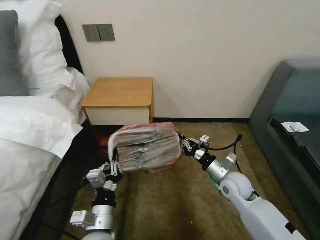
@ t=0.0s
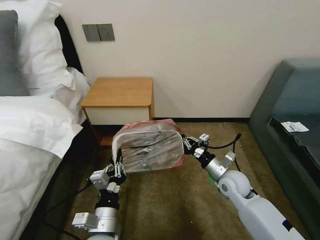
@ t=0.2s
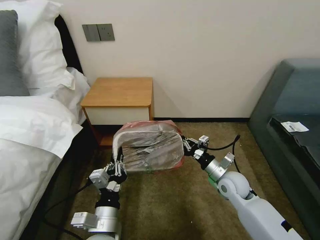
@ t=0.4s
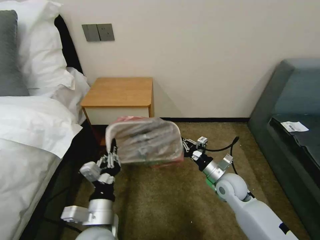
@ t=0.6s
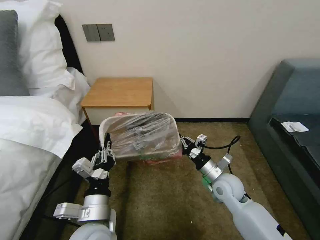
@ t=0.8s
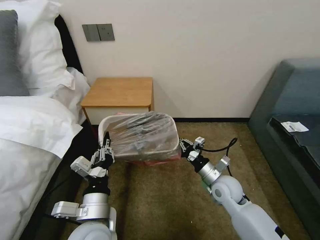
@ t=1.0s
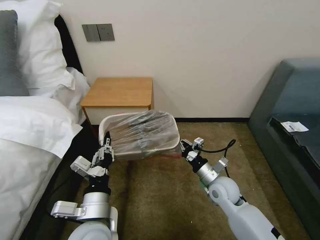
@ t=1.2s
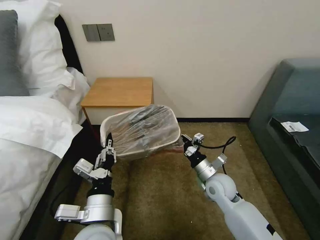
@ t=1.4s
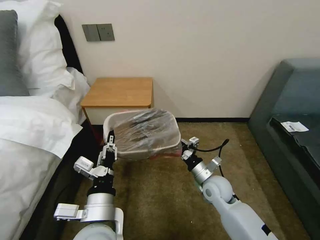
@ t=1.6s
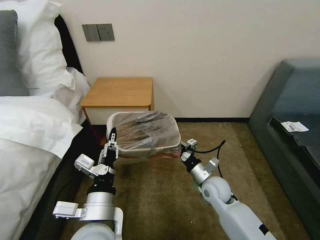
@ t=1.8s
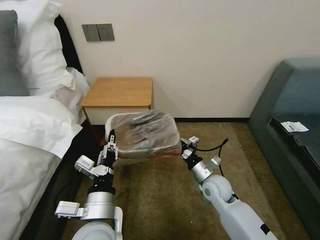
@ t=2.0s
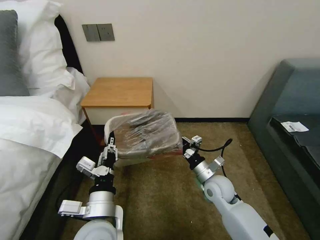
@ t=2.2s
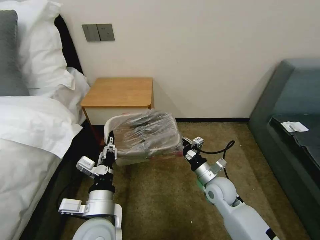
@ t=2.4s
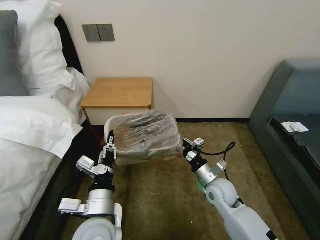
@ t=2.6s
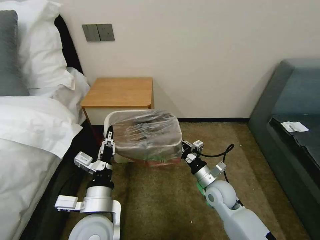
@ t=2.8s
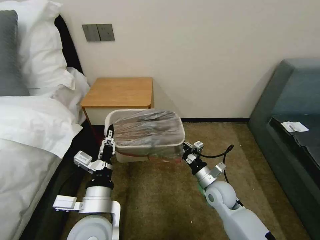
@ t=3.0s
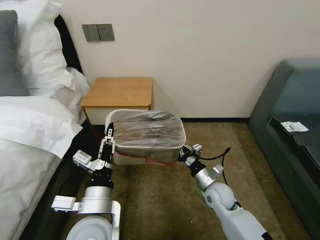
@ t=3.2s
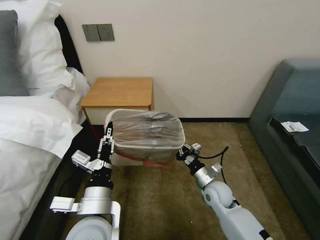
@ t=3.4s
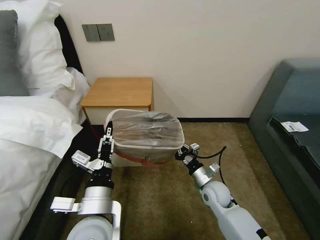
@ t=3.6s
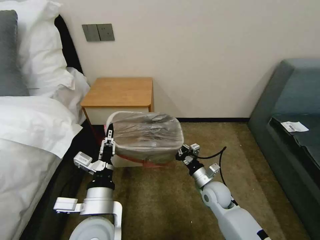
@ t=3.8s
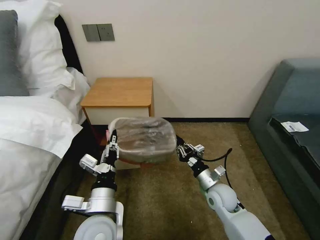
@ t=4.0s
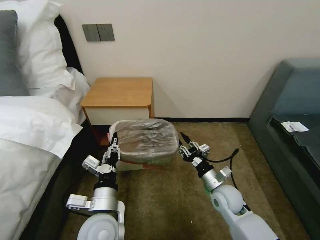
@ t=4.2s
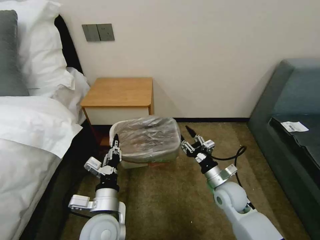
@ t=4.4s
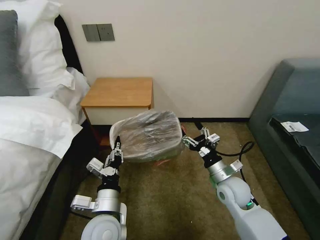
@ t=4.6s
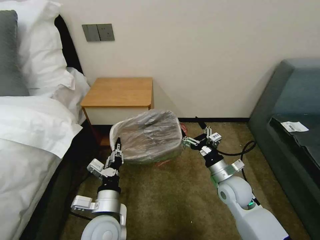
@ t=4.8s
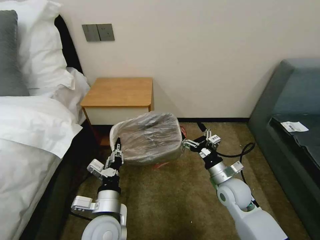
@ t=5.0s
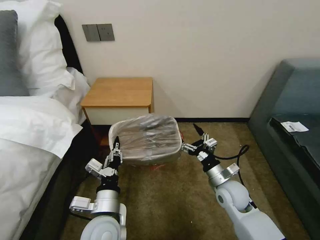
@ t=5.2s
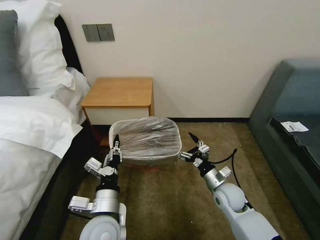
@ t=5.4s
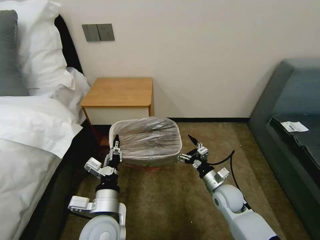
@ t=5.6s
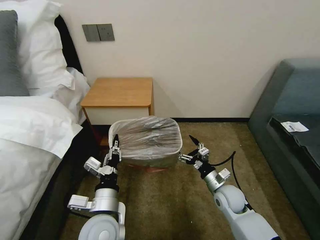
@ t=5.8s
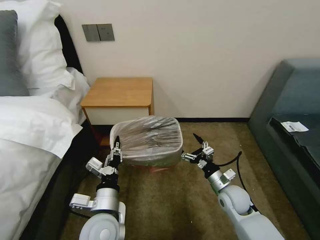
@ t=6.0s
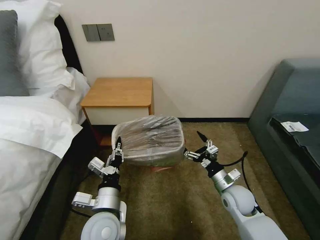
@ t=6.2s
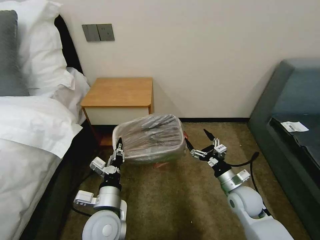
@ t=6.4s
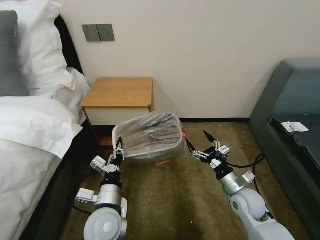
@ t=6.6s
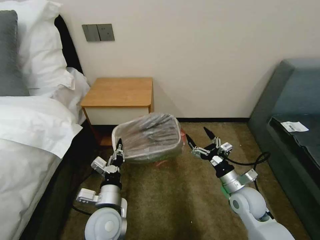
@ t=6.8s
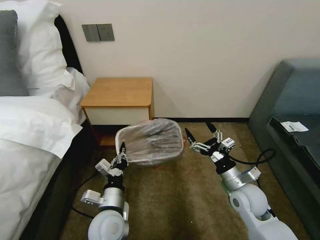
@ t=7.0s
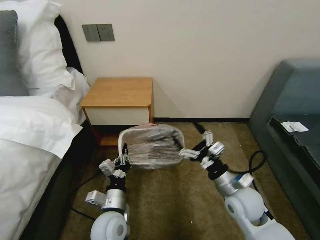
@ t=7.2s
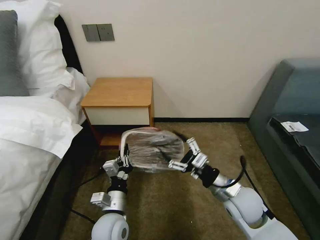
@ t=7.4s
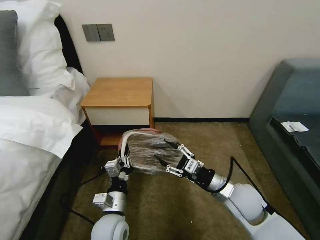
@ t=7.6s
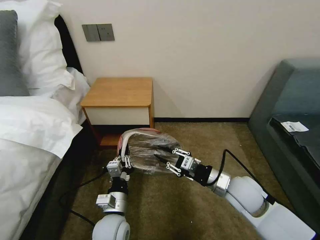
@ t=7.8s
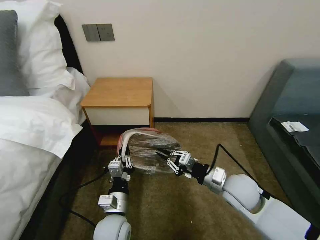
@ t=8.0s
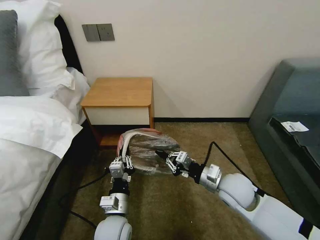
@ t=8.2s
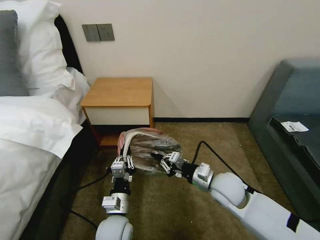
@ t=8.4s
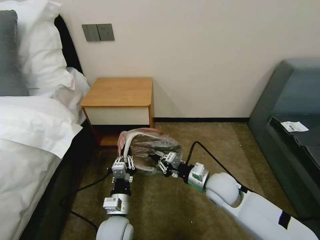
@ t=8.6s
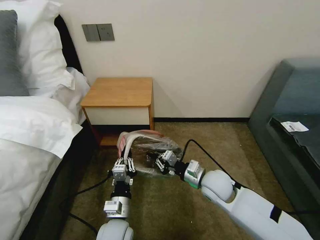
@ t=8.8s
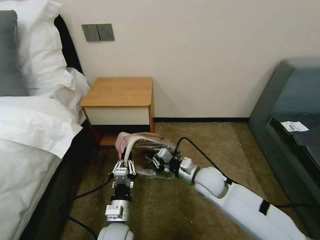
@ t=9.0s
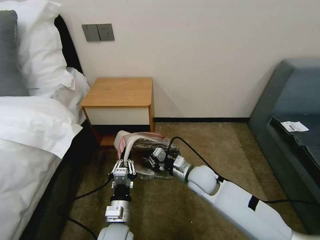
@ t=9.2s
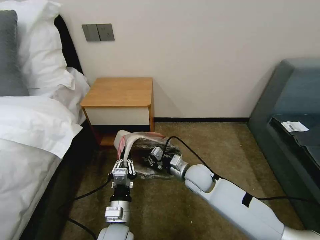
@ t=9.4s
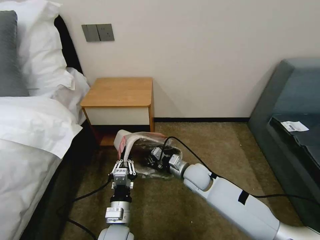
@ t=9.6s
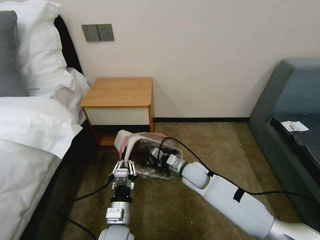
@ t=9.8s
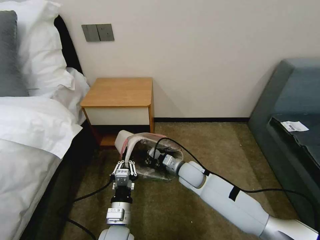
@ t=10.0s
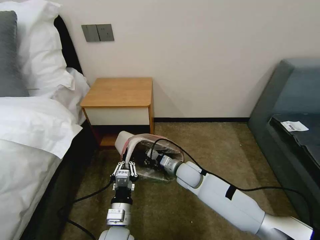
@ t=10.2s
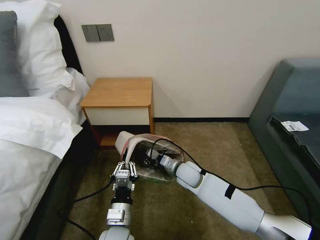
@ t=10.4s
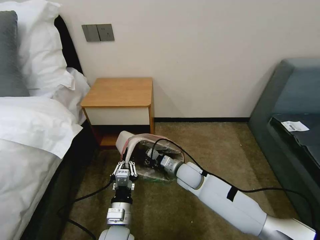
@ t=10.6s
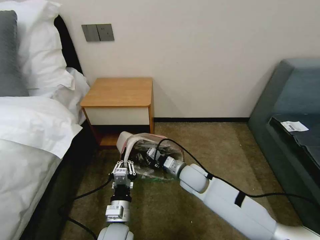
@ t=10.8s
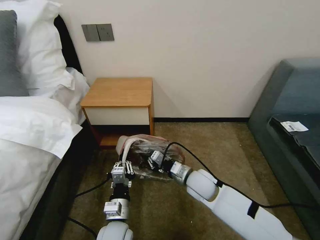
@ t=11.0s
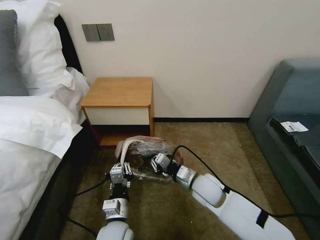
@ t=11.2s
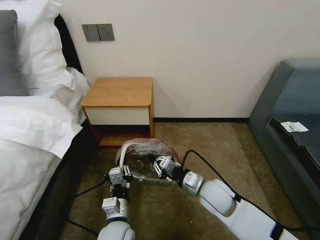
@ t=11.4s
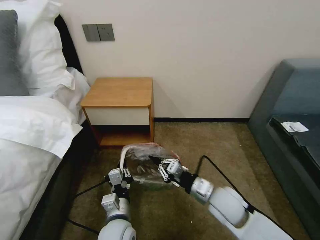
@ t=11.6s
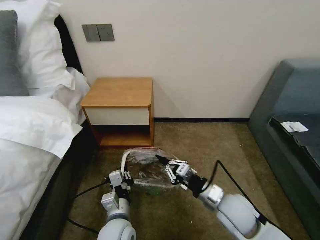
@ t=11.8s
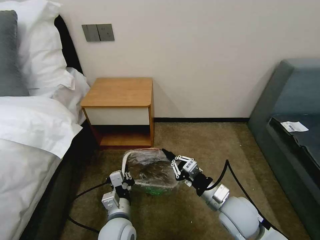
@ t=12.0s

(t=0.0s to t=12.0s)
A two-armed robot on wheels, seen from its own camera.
Task of the whole recording: Pick up the garbage bag from the table and place it over the trash can.
t=0.0s - t=1.6s: The left gripper heads upward, covering roughly 10 cm, while the right gripper heads to the left, covering some 5 cm.
t=1.6s - t=3.0s: The grippers make only small movements.
t=3.0s - t=4.4s: The right gripper opens, while the left gripper is displaced downward by about 5 cm.
t=4.4s - t=6.0s: The right gripper opens up.
t=6.0s - t=7.6s: The right gripper goes approximately 10 cm upward, and closes up. The left gripper shifts some 5 cm downward.
t=7.6s - t=9.0s: The right gripper shifts roughly 10 cm to the left and forward, and closes.
t=9.0s - t=10.4s: The right gripper is displaced downward, to the left and forward by some 10 cm.
t=10.4s - t=12.0s: The right gripper moves backward, to the right and upward, some 20 cm.

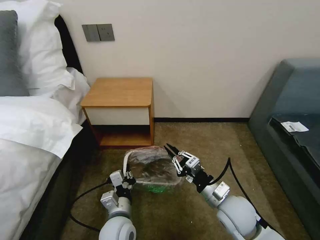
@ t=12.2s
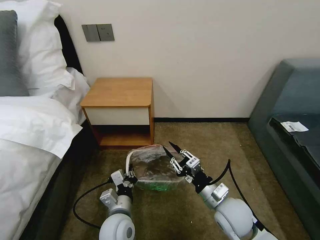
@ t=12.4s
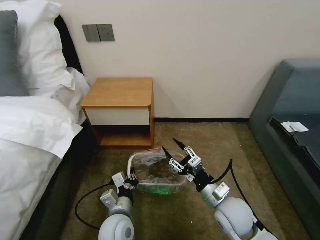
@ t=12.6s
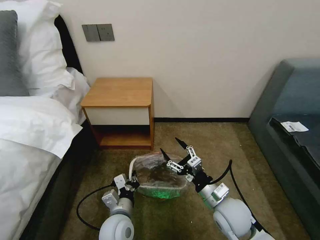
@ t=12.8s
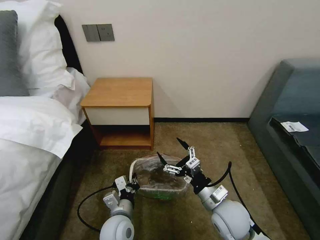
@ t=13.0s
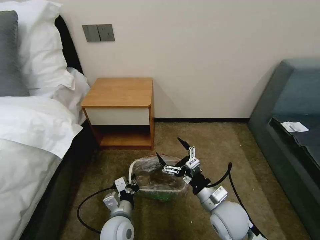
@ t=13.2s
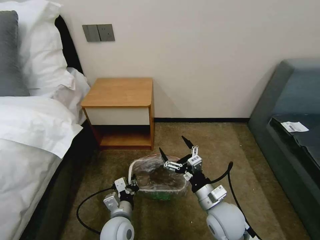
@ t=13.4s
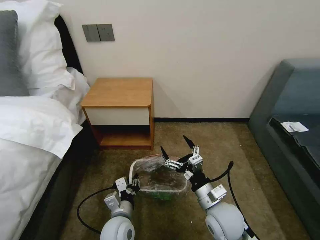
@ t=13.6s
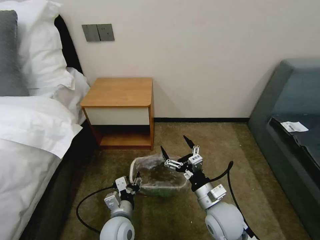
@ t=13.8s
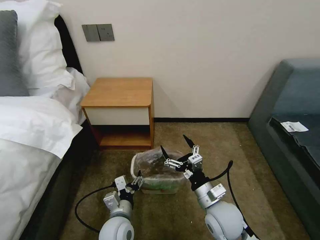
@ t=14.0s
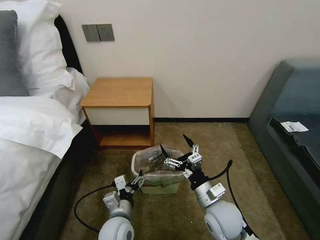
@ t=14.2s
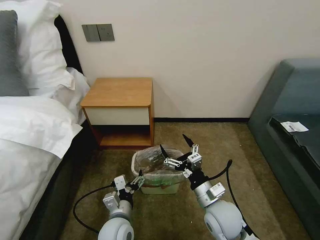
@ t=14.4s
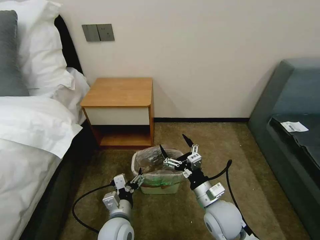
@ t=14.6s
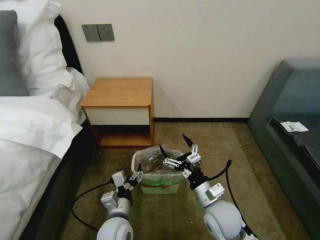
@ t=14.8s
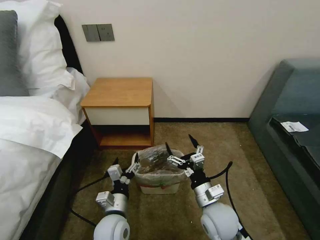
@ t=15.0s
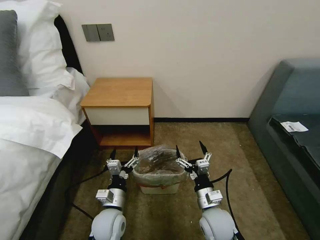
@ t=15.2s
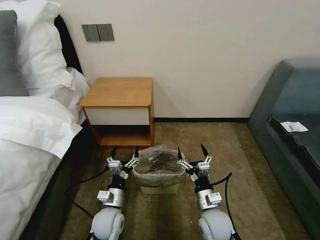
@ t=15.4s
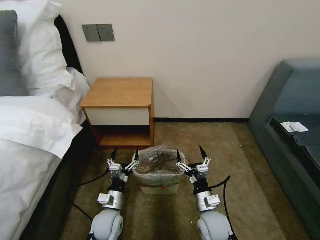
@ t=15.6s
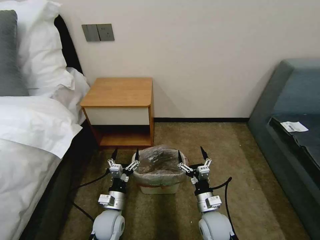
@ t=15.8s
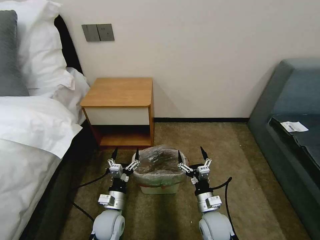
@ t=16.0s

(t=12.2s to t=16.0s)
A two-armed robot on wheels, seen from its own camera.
Task of the whole recording: Pick up the garbage bag from the table and place it over the trash can.
t=12.2s - t=13.4s: The right gripper opens up.
t=13.4s - t=14.8s: The left gripper opens its fingers.
t=14.8s - t=16.0s: Both grippers move downward, about 10 cm.
